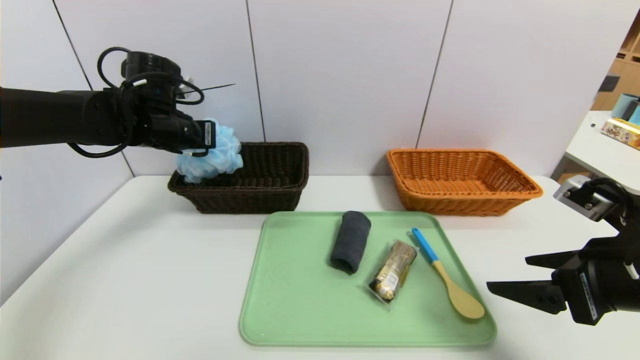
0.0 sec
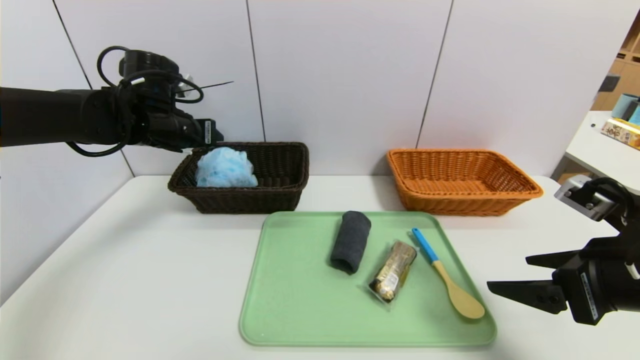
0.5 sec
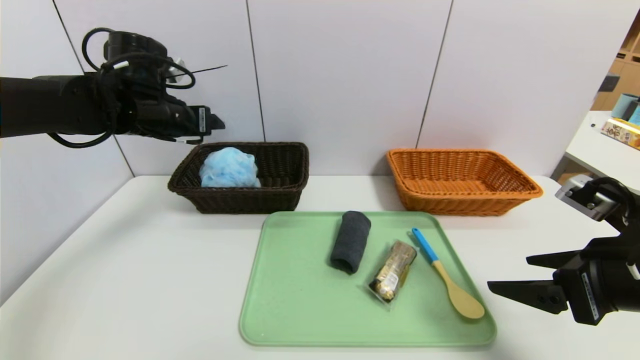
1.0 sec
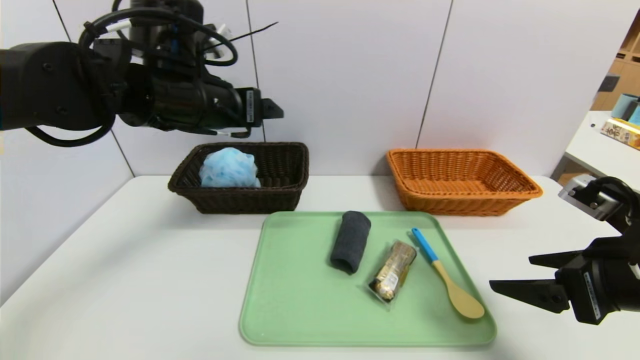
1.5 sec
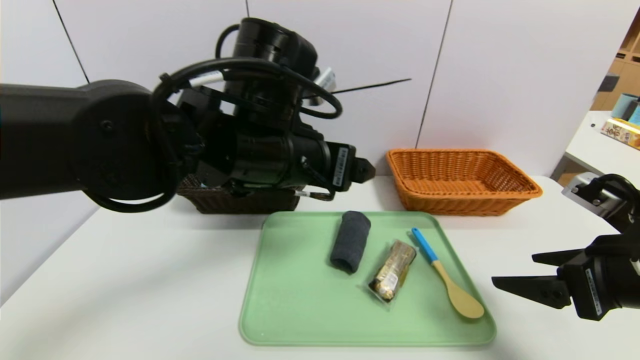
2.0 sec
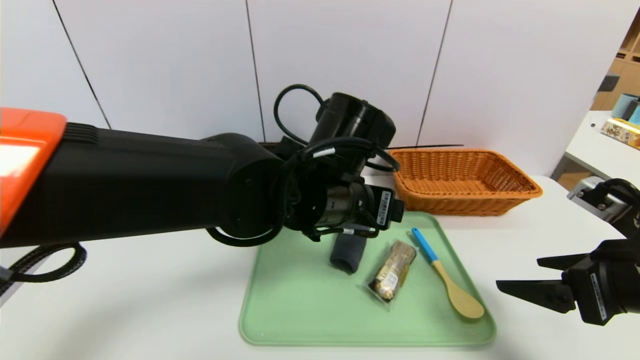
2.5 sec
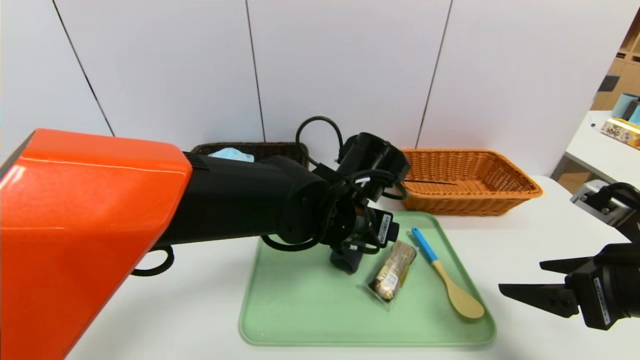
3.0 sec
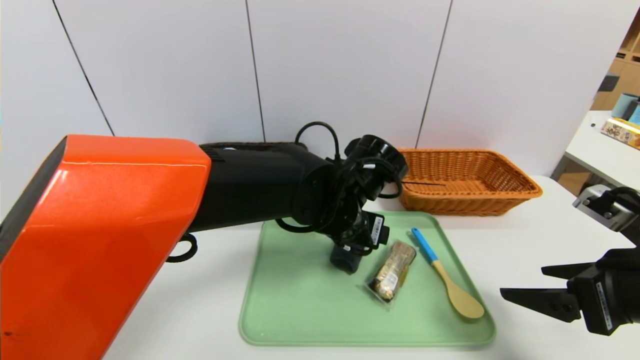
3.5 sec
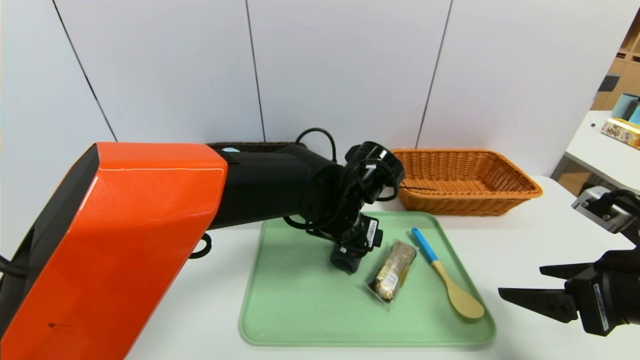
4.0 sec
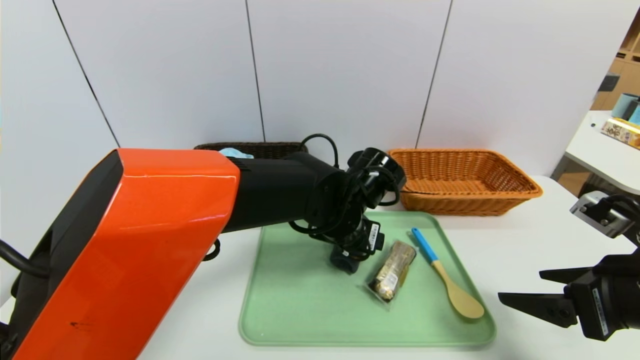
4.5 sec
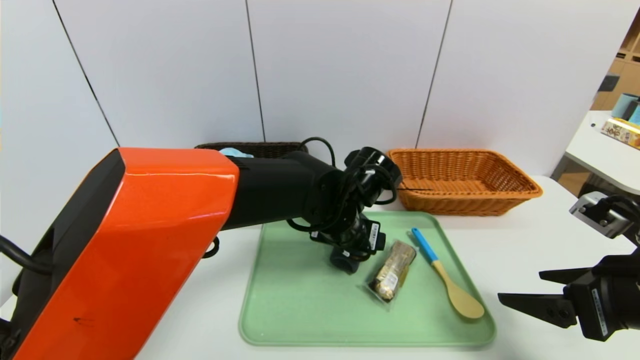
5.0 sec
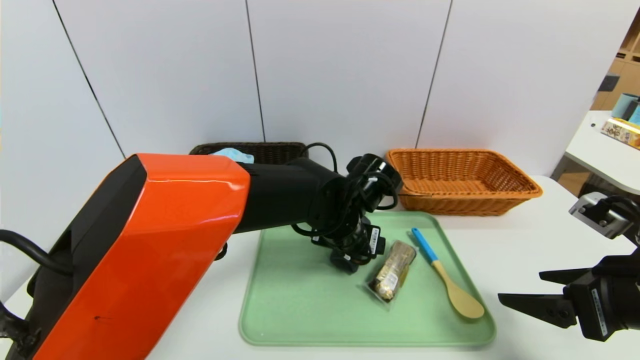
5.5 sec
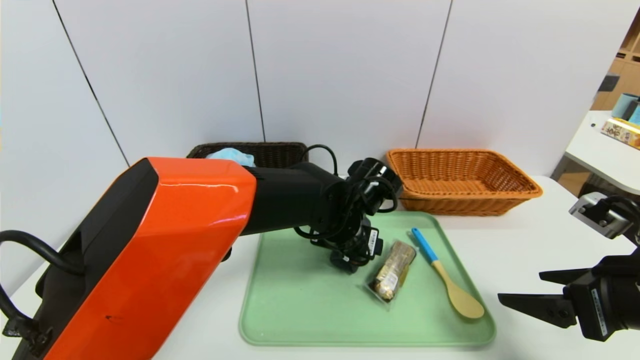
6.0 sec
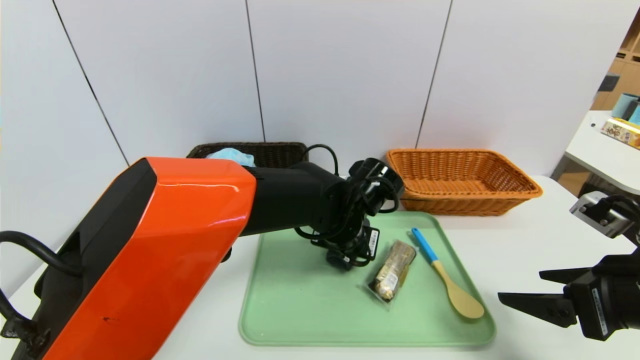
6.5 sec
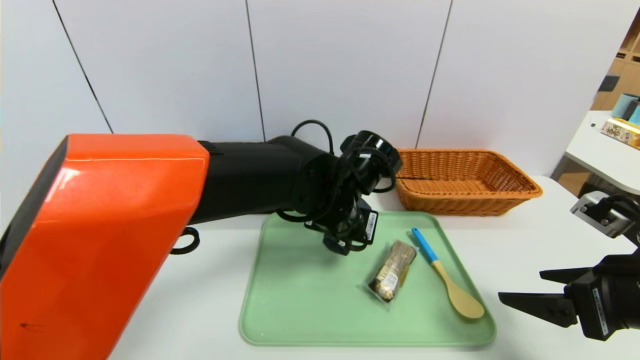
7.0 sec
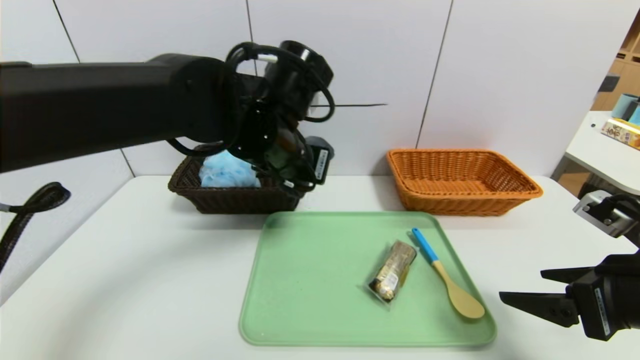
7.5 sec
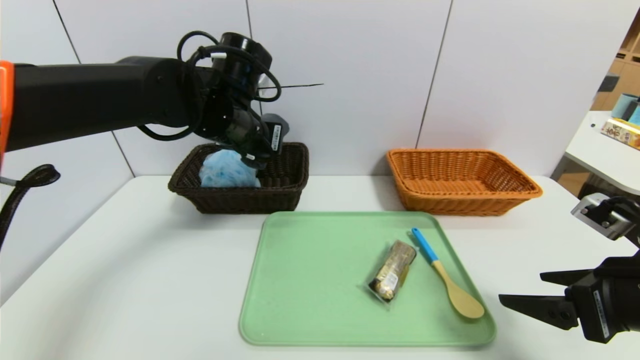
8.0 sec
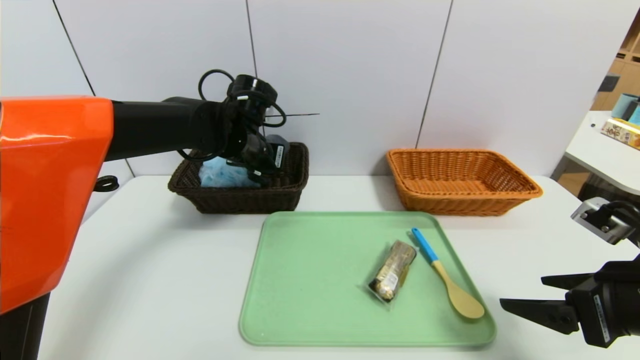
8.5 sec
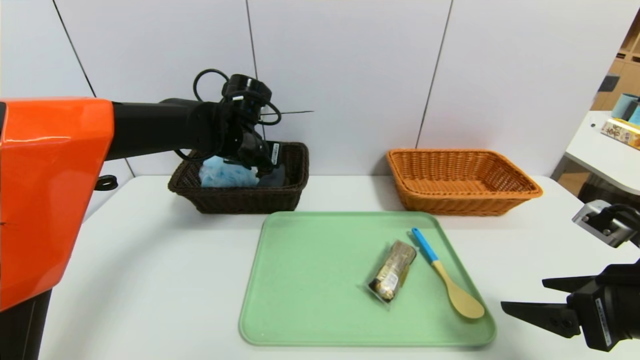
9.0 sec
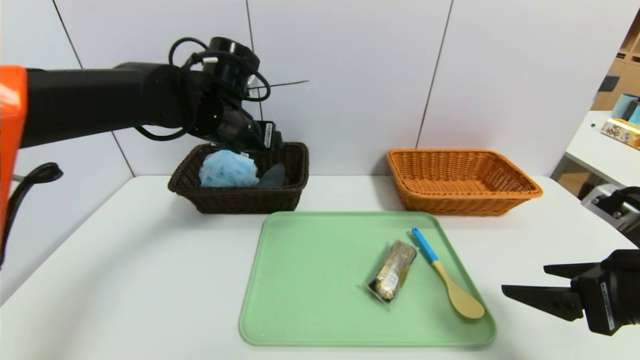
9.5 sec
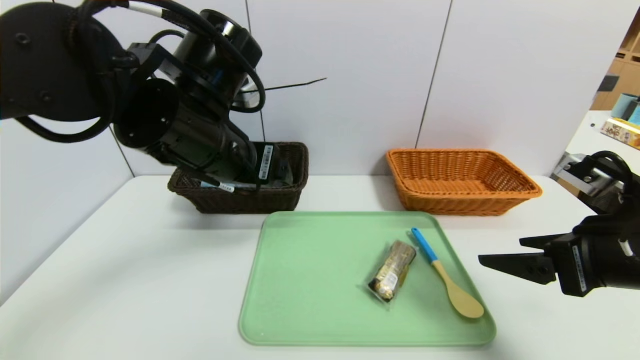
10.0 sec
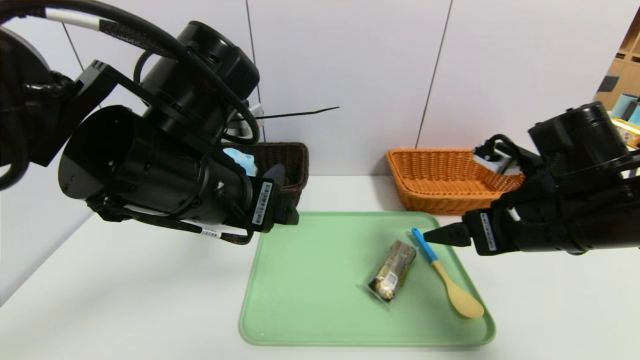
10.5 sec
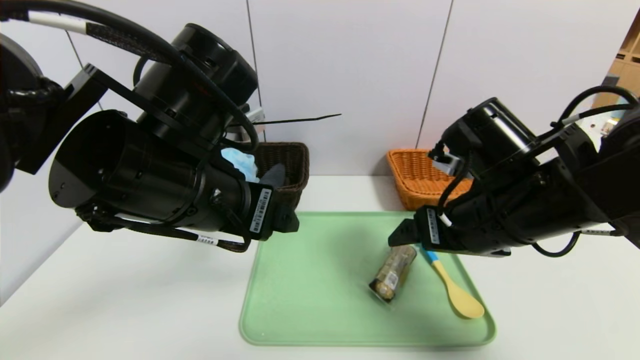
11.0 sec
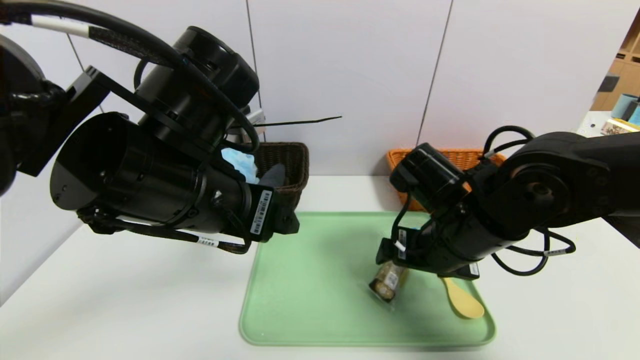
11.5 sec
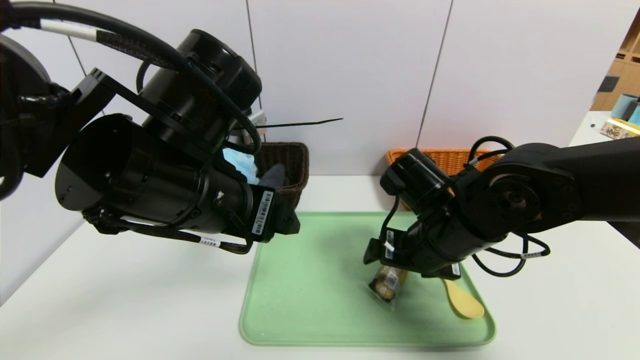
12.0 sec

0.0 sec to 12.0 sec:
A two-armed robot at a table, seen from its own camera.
Task of the whole recording: place the food in the right basket with the right gripper, and place the non food items in the left basket with the left gripper.
Step, 1.5 sec to 9.0 sec: Grasp the grey towel and put it in the left basket.
0.0 sec to 2.0 sec: The left gripper travels to the right and backward by some 25 cm, and opens.
2.0 sec to 4.0 sec: The left gripper heads downward and to the right, covering some 15 cm.
4.0 sec to 6.0 sec: The grippers make only small movements.
6.0 sec to 8.0 sec: The left gripper shifts about 20 cm to the left and upward, and closes.
8.0 sec to 10.0 sec: The left gripper shifts about 10 cm backward, and opens.
10.0 sec to 12.0 sec: The left gripper goes roughly 5 cm backward. Meanwhile the right gripper travels to the left and forward by about 20 cm.

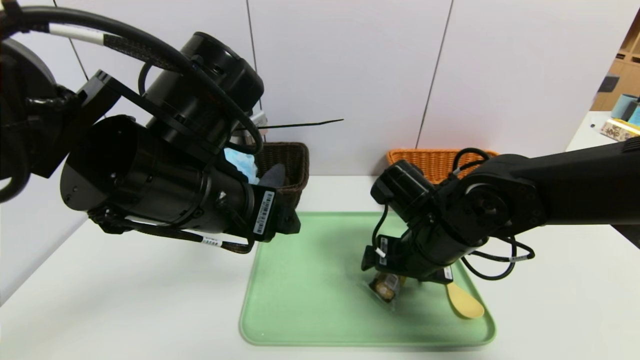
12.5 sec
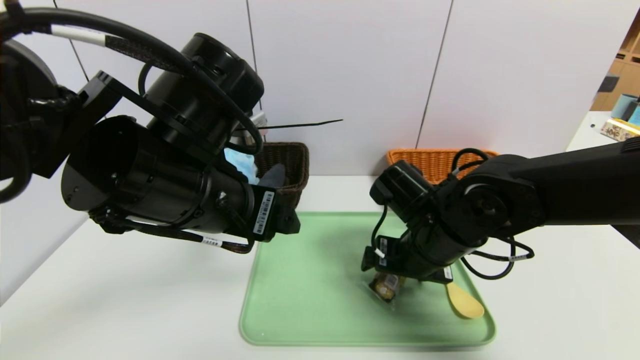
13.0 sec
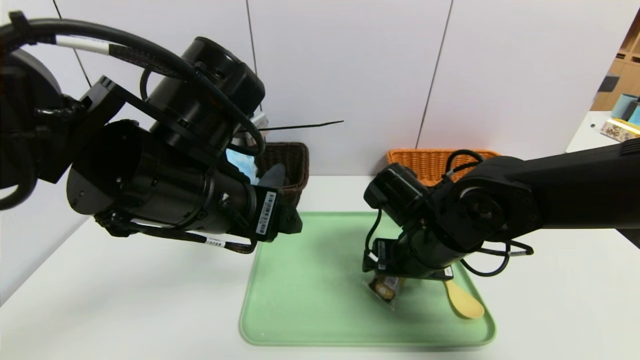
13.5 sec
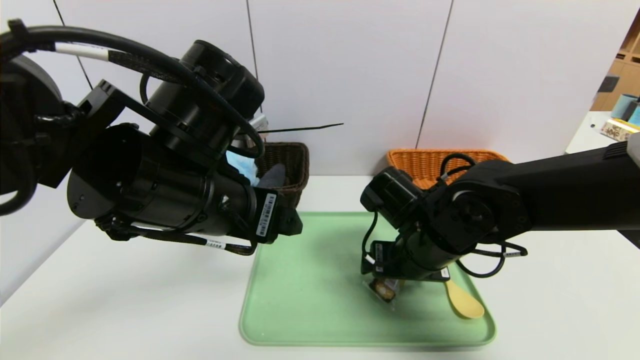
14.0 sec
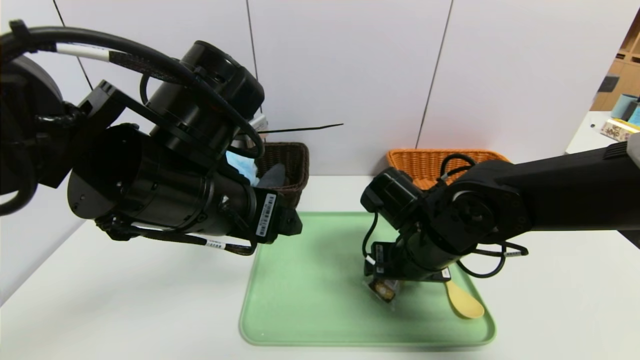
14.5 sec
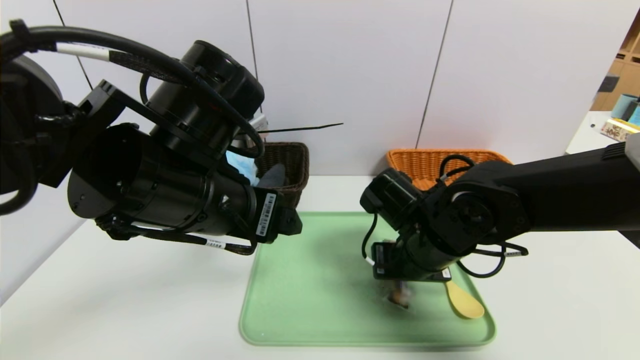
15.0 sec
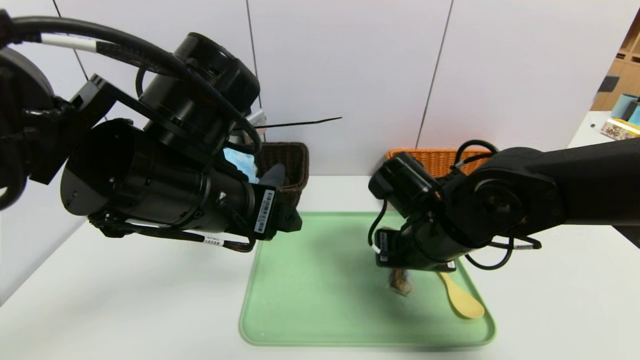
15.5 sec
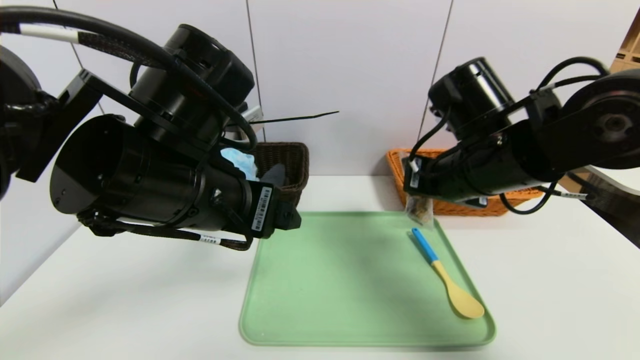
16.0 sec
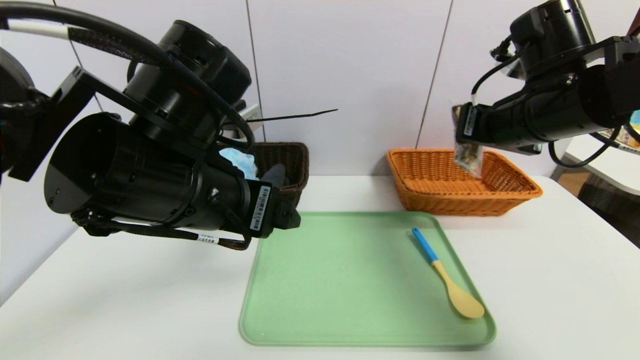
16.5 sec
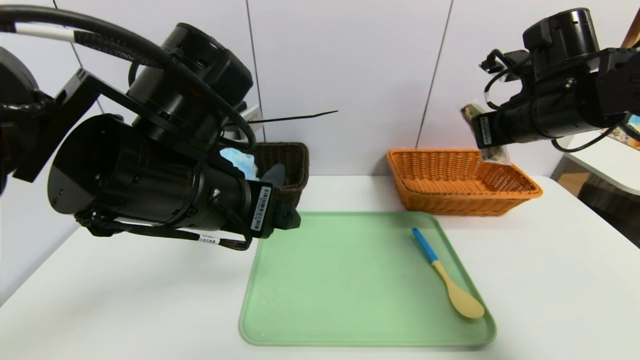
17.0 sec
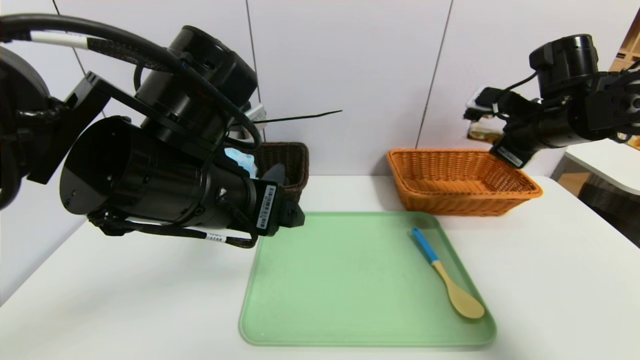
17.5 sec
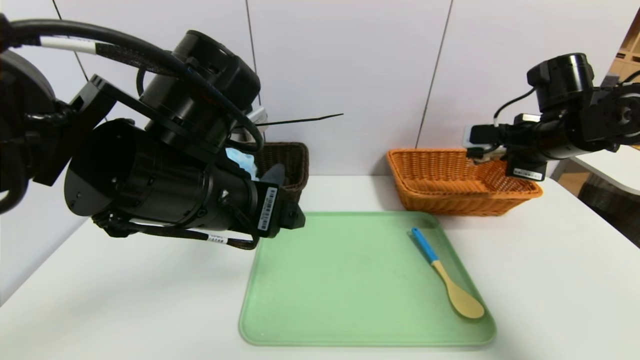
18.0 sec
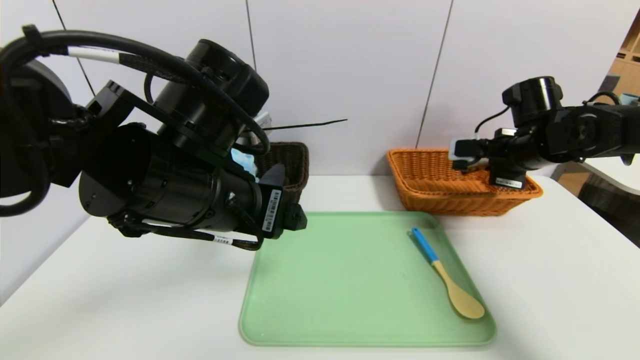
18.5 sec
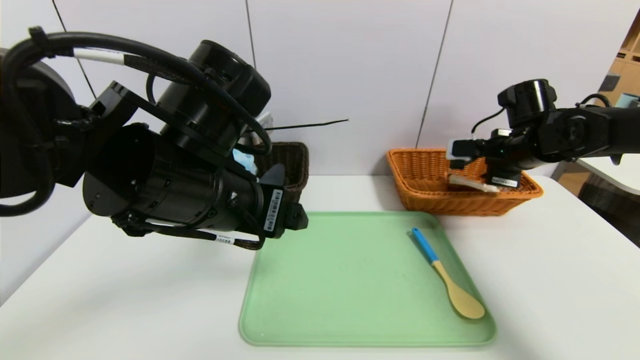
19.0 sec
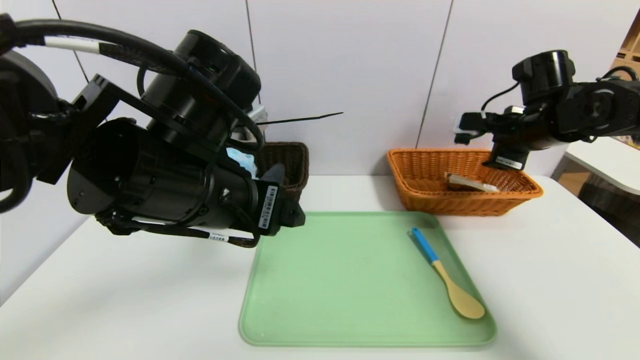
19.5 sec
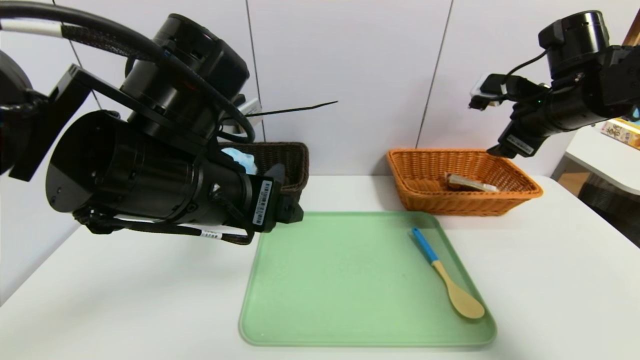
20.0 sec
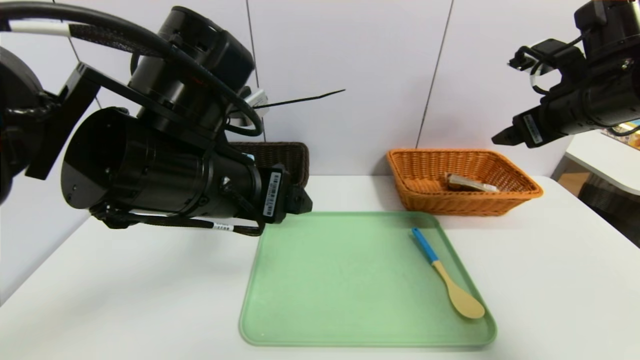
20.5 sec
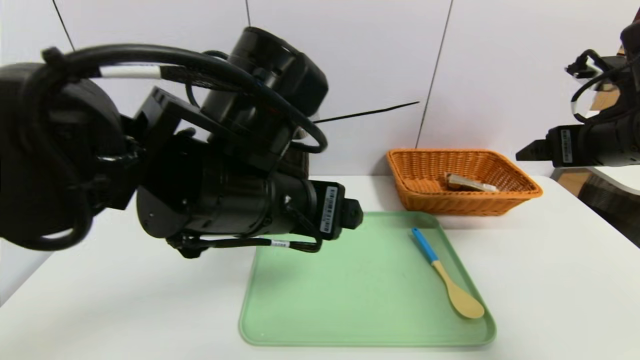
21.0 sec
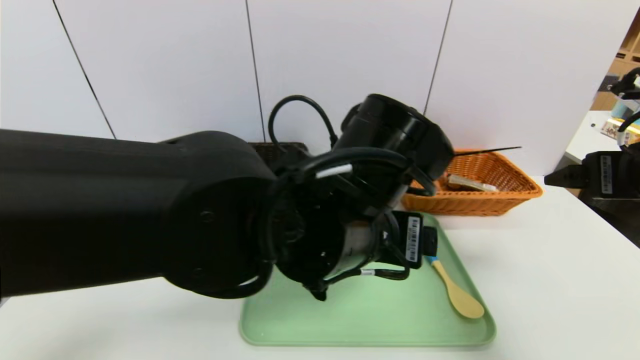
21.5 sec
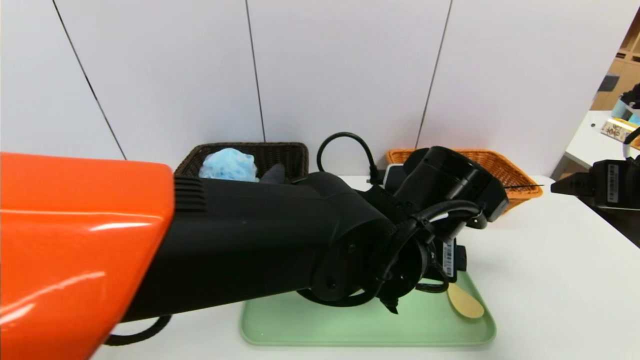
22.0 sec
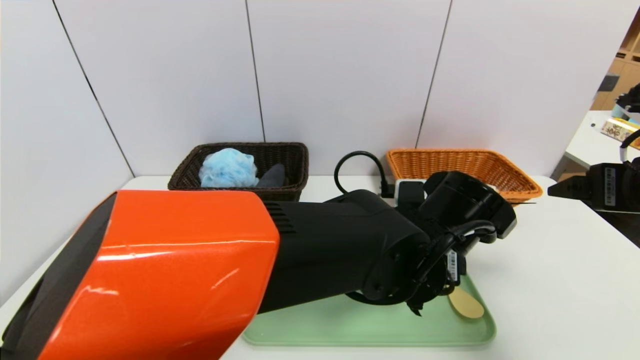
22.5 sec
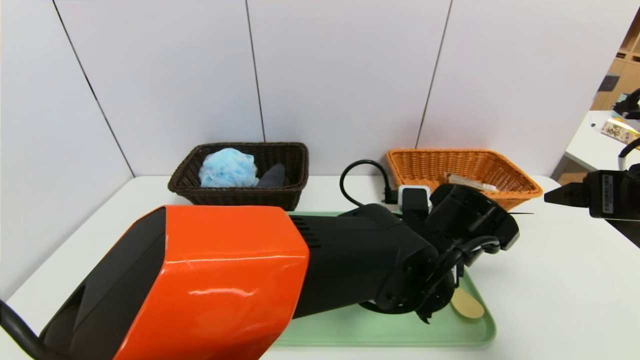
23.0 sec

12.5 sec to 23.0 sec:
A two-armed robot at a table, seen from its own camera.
Task of the whole recording: place the food in the right basket with the right gripper, and place the non food items in the left basket with the left gripper.
Step, 12.5 sec to 19.0 sec: Grasp the chocolate and put it in the right basket.
12.5 sec to 14.5 sec: There are only small adjustments of the grippers.
14.5 sec to 16.5 sec: The right gripper travels upward and to the right by roughly 20 cm, and closes its fingers.
16.5 sec to 19.0 sec: The right gripper travels forward, downward and to the right by approximately 15 cm, and opens up.
19.0 sec to 21.0 sec: The right gripper travels backward and upward by about 15 cm, and opens its fingers.
21.0 sec to 23.0 sec: The right gripper moves backward, roughly 5 cm. The left gripper heads to the right and downward, covering some 20 cm.
